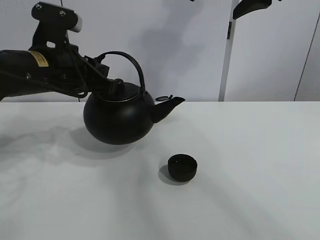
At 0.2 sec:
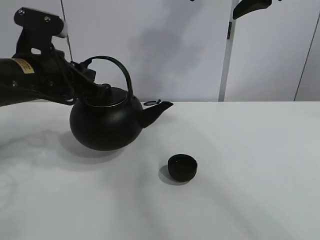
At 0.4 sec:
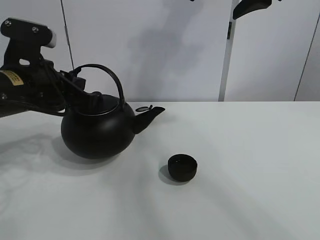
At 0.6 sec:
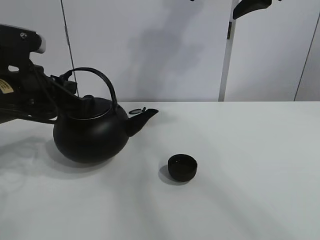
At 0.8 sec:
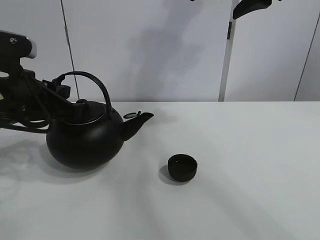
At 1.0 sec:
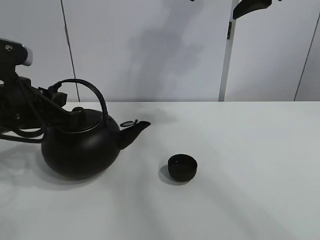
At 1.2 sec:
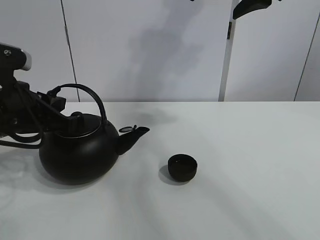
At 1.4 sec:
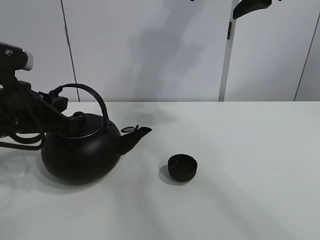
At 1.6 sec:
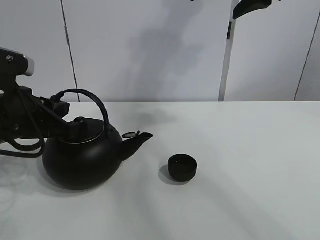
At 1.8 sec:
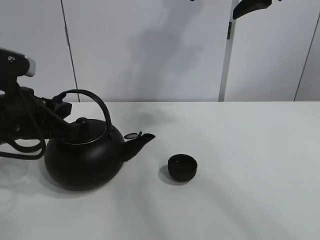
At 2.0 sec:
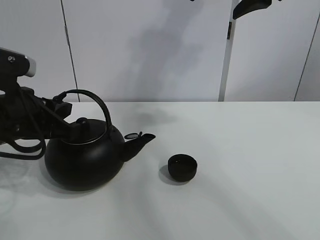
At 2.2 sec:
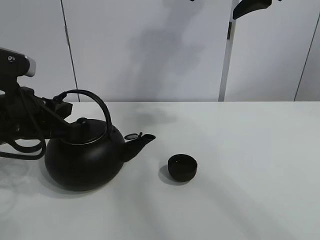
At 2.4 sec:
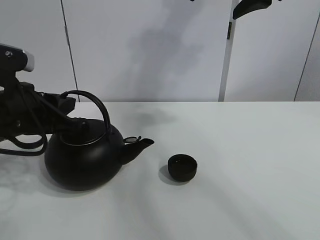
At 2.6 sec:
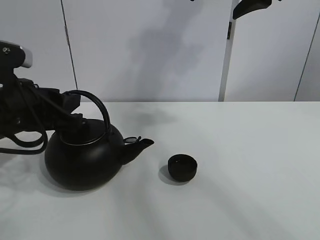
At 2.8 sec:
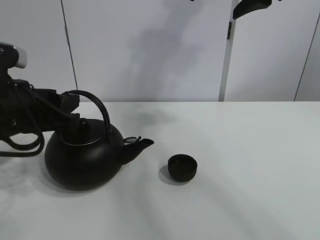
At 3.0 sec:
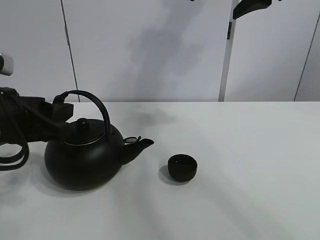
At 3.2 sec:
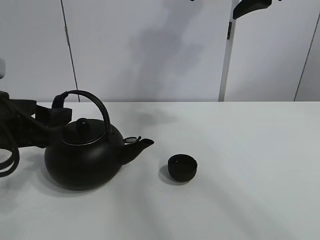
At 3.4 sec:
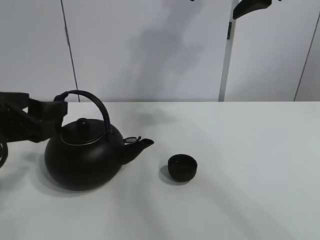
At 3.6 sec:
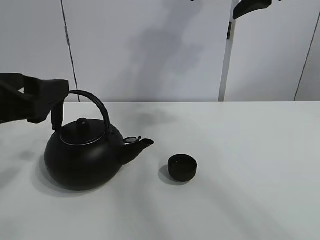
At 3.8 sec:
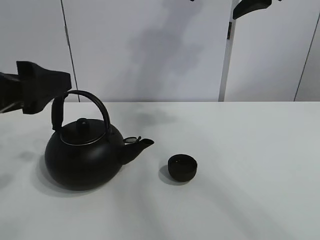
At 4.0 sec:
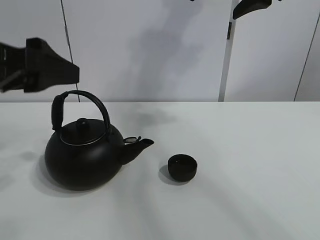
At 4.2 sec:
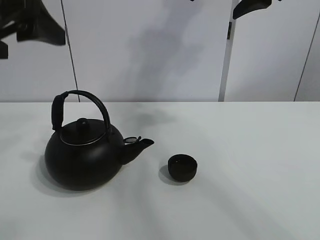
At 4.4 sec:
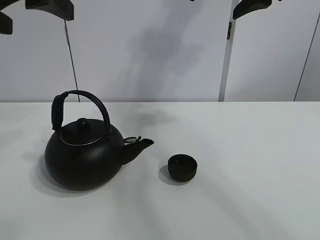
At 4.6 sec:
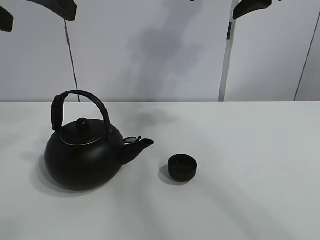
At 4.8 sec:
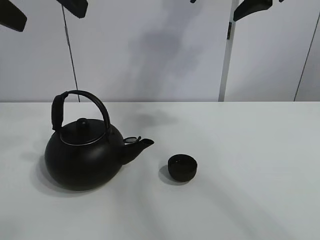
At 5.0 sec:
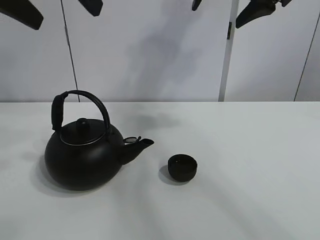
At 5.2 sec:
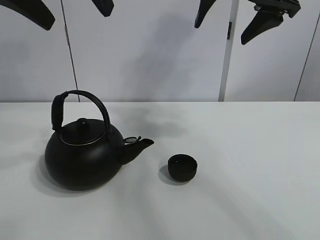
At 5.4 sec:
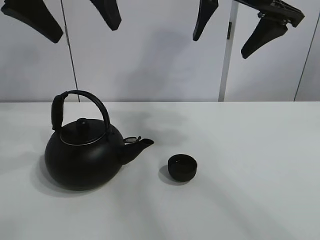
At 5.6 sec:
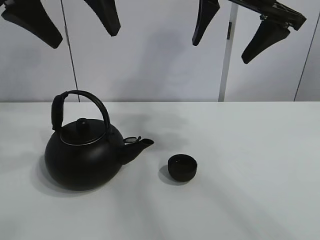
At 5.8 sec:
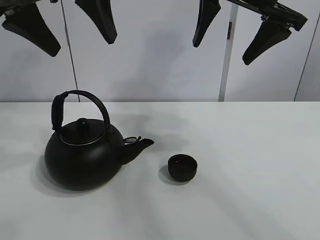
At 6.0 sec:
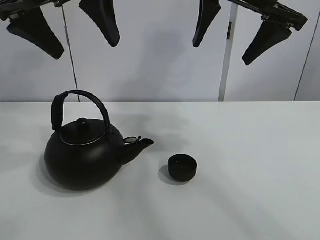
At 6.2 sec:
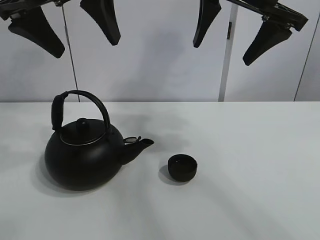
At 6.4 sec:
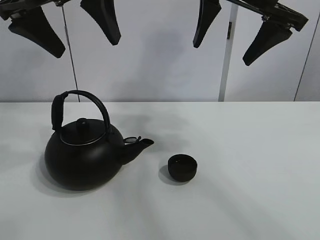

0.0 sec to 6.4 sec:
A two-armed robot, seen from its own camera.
Task of the whole recording: pour tea into the teacup.
0.0 sec to 1.6 sec: The left gripper travels backward by approximately 5 cm.
1.6 sec to 3.2 sec: The left gripper opens its fingers.
3.2 sec to 4.8 sec: The left gripper moves upward, roughly 20 cm.
4.8 sec to 6.4 sec: The left gripper moves forward, some 10 cm.
